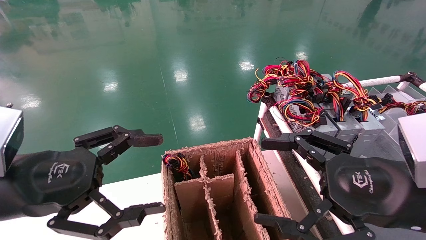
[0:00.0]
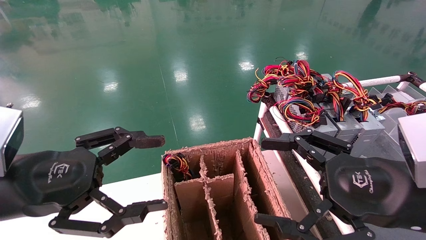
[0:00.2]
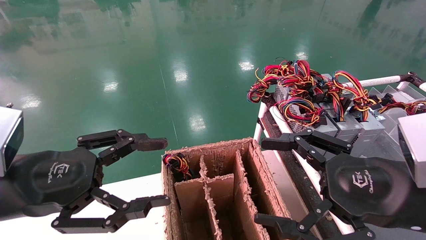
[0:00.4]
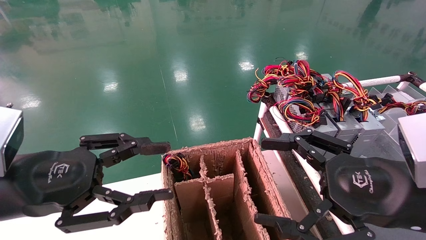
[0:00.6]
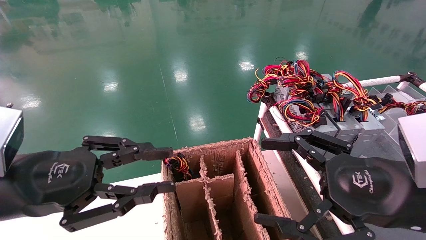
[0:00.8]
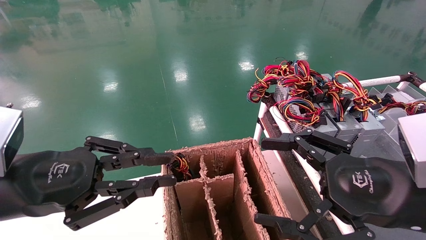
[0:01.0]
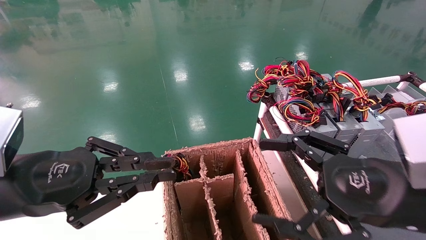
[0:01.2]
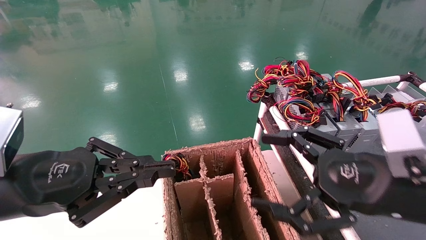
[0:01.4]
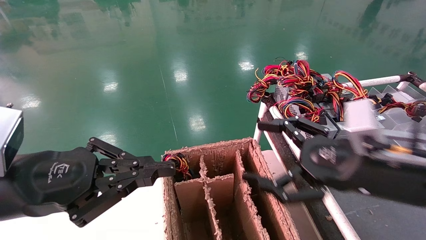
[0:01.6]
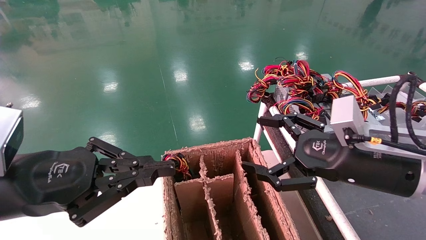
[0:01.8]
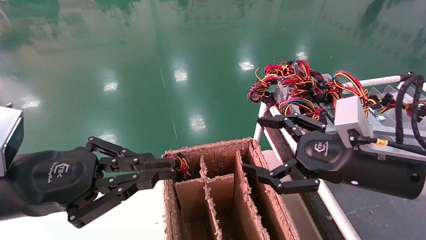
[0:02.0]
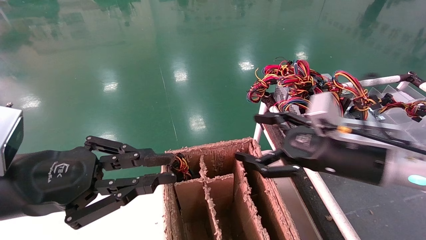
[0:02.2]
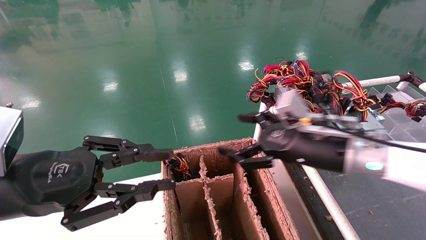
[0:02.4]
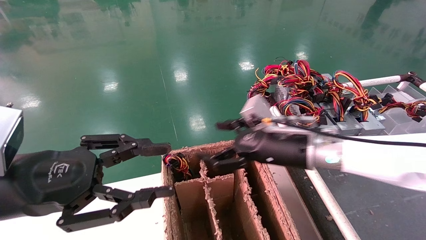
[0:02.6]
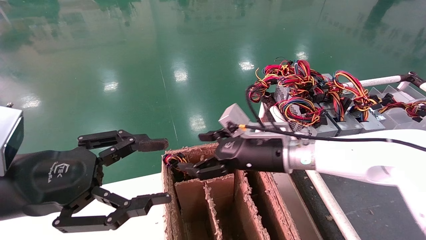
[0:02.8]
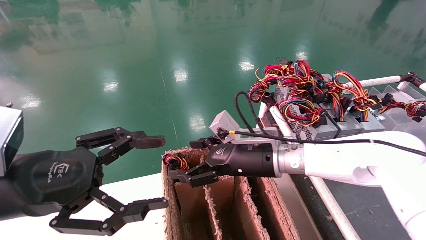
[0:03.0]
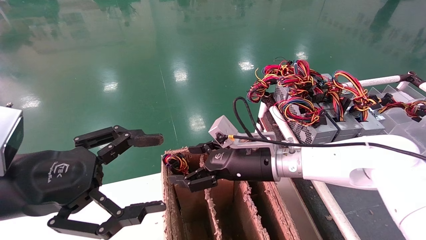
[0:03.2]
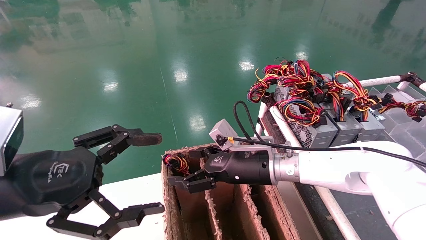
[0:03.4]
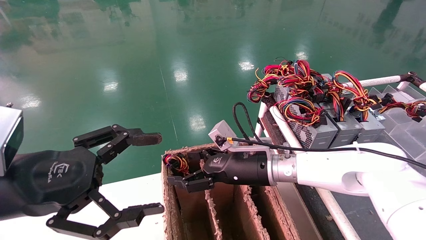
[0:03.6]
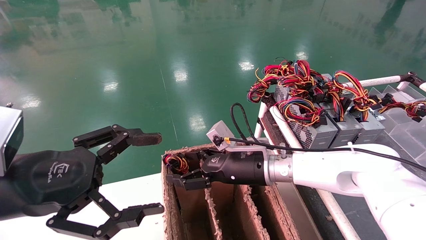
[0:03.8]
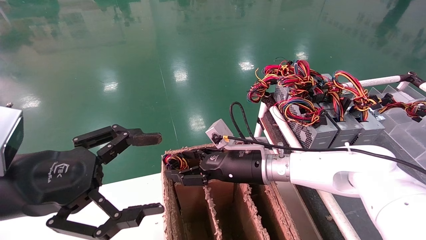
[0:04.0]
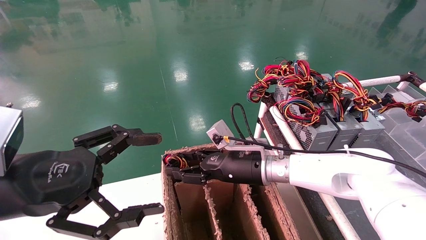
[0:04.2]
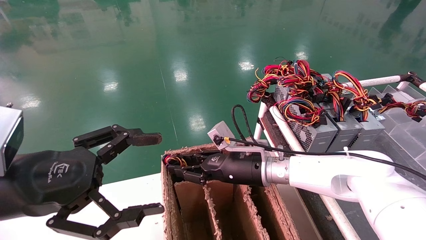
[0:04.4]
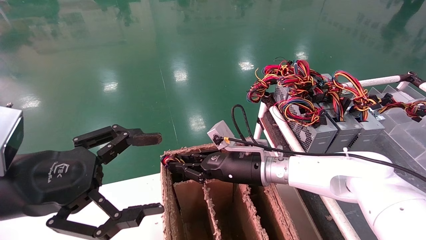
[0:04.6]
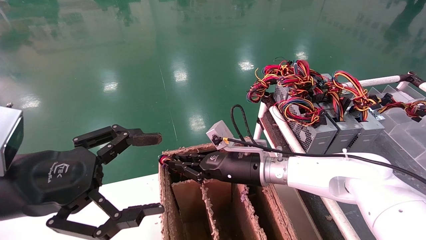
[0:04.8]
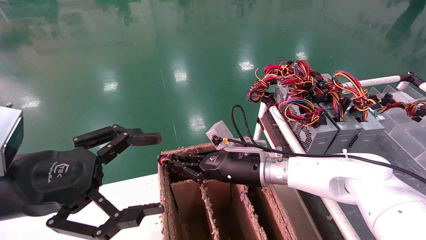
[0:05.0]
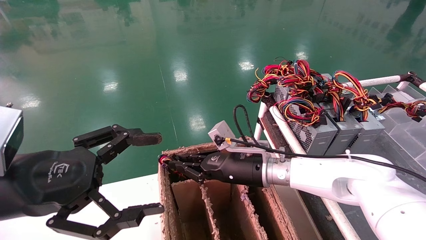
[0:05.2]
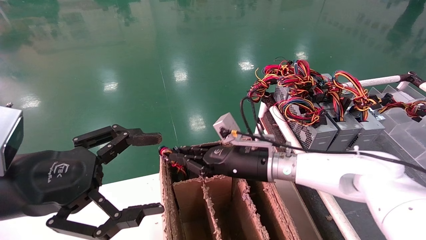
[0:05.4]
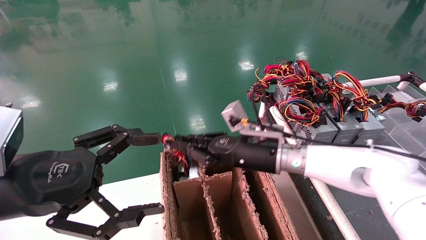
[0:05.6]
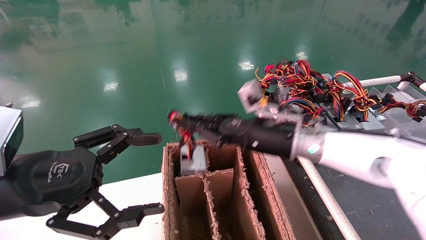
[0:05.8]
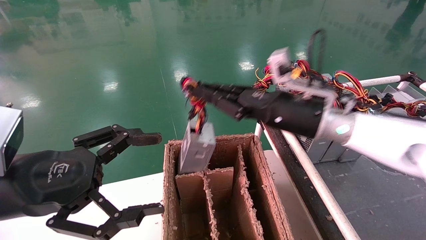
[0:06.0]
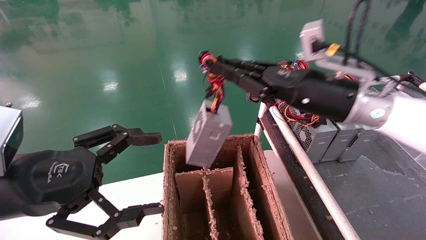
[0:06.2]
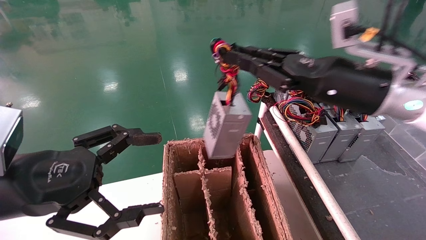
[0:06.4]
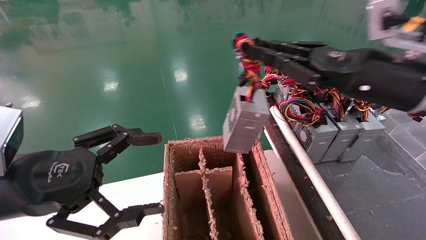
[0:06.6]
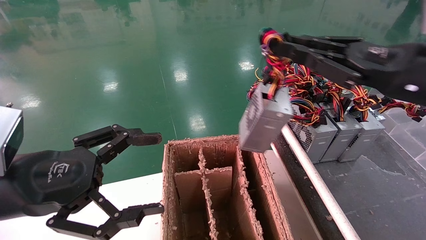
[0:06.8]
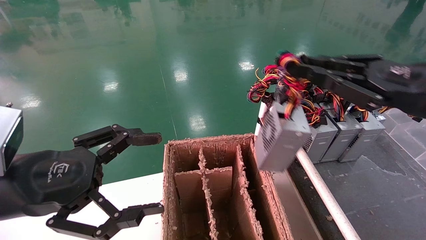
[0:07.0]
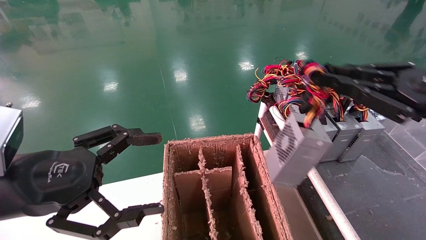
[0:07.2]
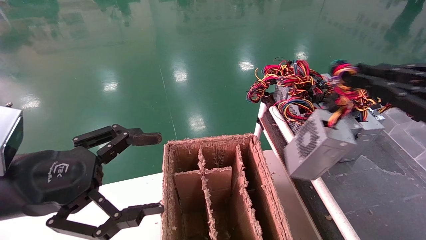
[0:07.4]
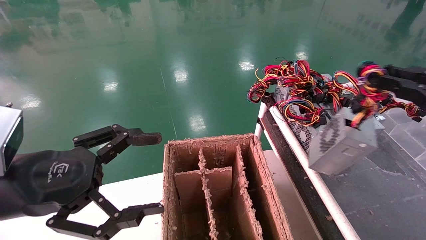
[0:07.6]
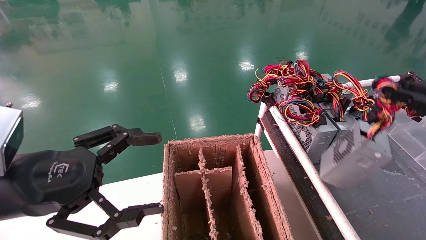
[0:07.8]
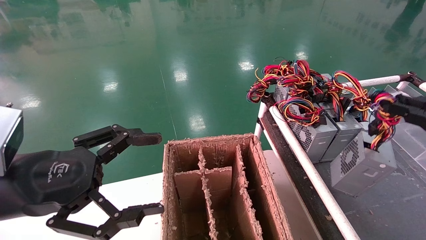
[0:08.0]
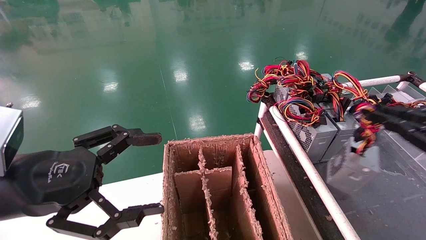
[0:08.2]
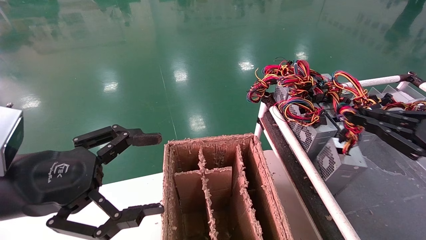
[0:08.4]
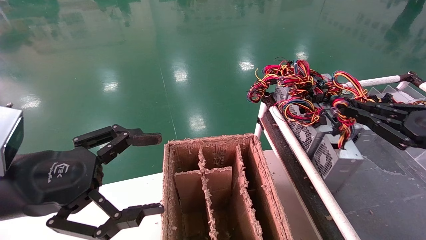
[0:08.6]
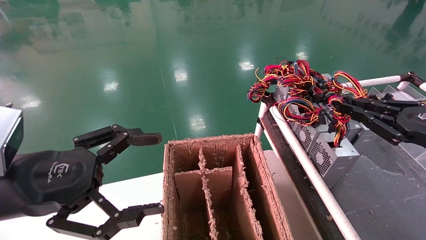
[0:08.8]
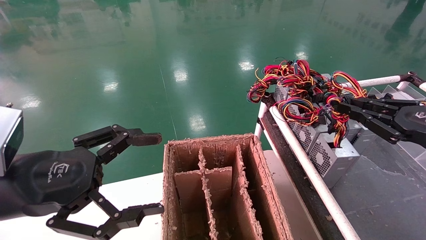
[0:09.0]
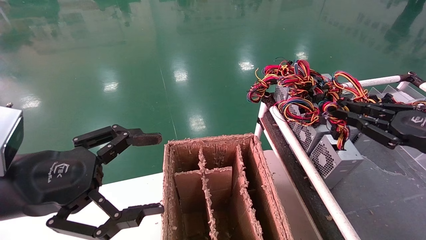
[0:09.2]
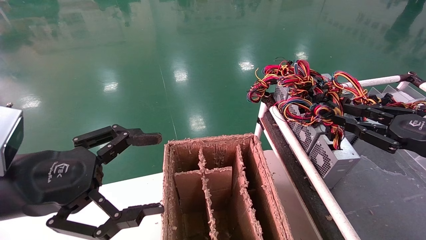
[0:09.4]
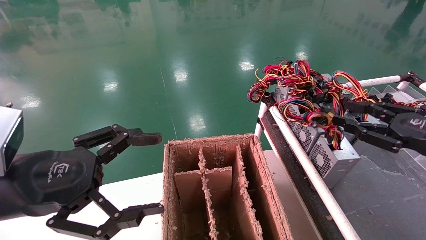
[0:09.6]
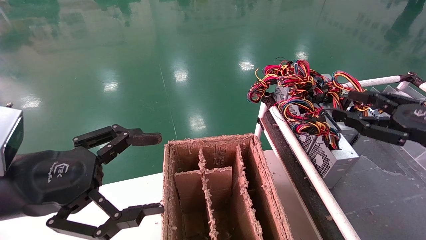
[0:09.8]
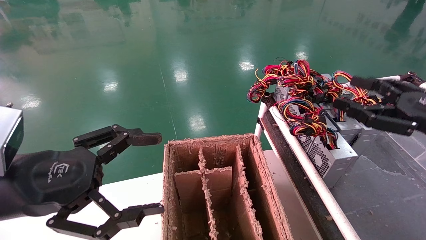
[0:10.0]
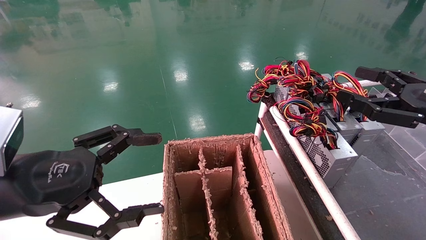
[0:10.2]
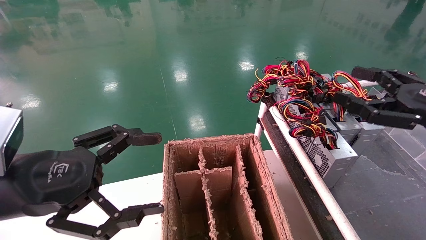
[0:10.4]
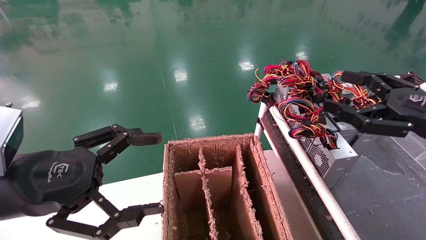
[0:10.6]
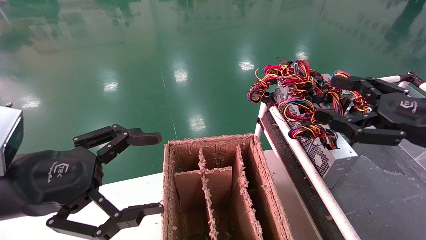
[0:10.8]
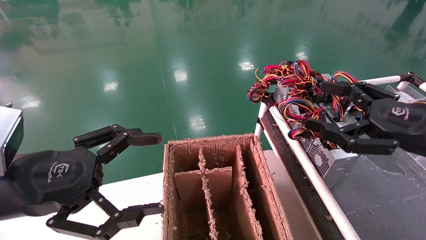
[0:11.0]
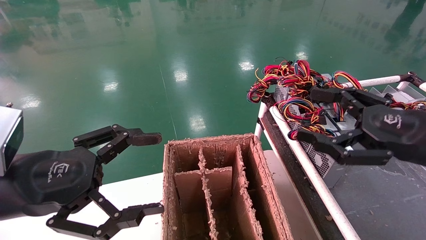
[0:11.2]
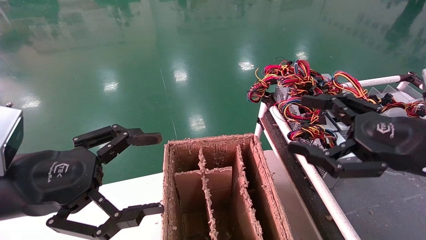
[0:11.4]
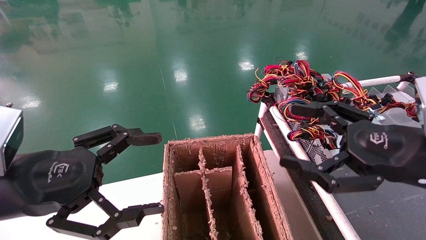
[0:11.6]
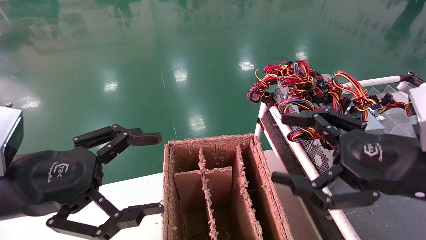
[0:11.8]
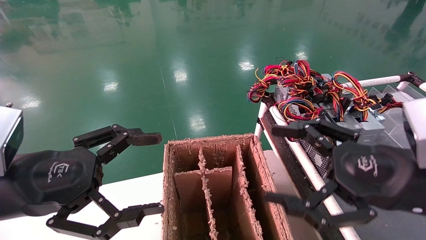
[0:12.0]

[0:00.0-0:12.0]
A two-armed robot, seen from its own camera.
Step, 0:01.4 to 0:04.8: Grab and lift the power supply from the large box.
Step, 0:05.0 to 0:09.2: Place the power supply on the operating table.
0:00.0 to 0:01.6: The right gripper goes about 5 cm forward, while the left gripper closes.
0:01.6 to 0:03.0: The right gripper travels to the left and forward by about 20 cm. Meanwhile the left gripper opens its fingers.
0:03.0 to 0:04.4: The right gripper moves about 5 cm, and closes up.
0:04.4 to 0:06.0: The right gripper travels upward and to the right by roughly 15 cm, and closes up.
0:06.0 to 0:07.6: The right gripper moves to the right and backward, roughly 30 cm.
0:07.6 to 0:09.0: The right gripper shifts some 10 cm forward and downward.
0:09.0 to 0:10.4: The right gripper opens up.
0:10.4 to 0:12.0: The right gripper moves to the left and backward, roughly 15 cm.

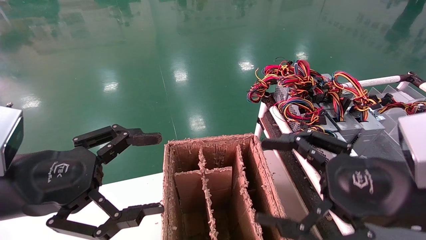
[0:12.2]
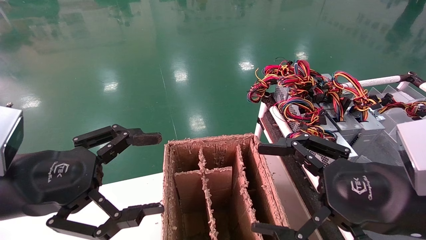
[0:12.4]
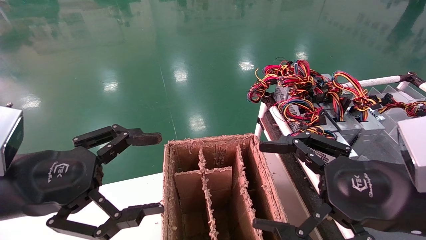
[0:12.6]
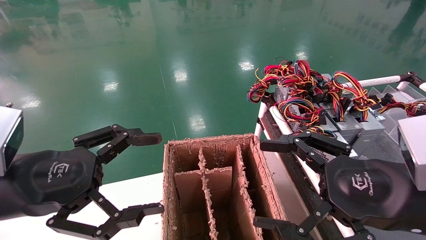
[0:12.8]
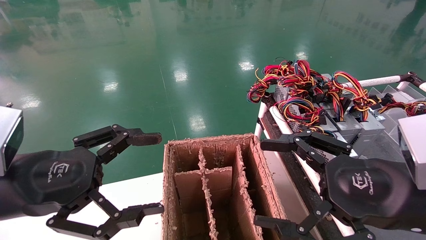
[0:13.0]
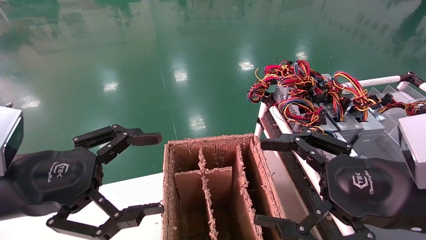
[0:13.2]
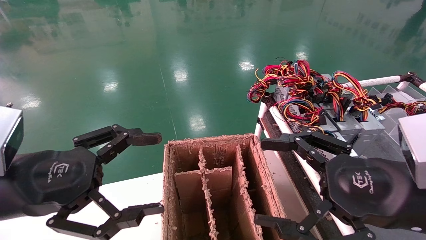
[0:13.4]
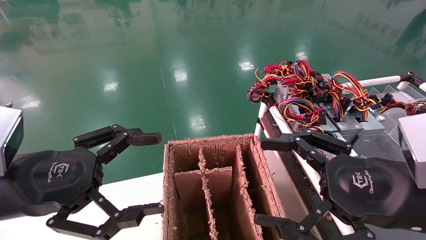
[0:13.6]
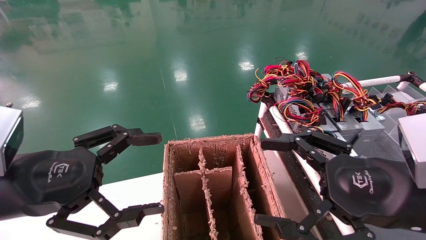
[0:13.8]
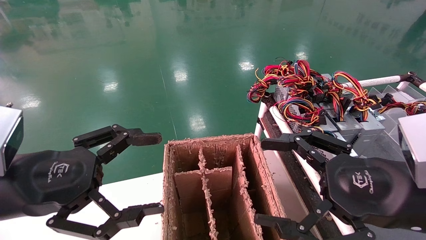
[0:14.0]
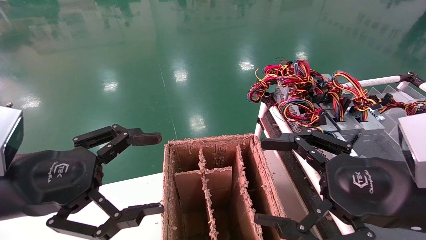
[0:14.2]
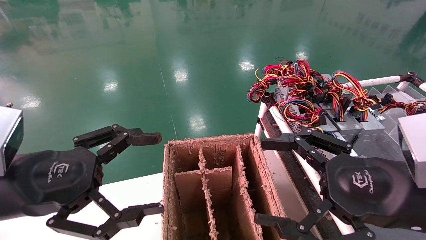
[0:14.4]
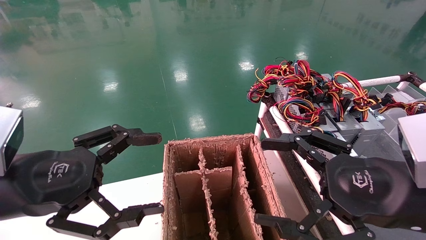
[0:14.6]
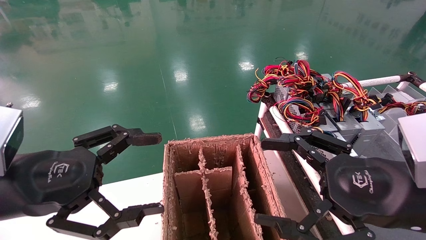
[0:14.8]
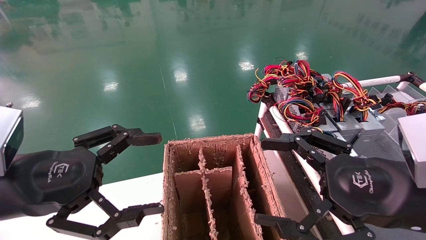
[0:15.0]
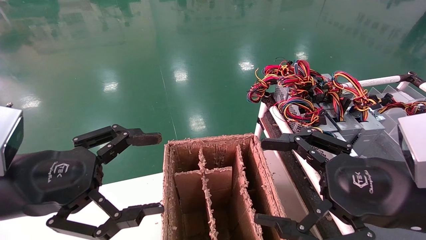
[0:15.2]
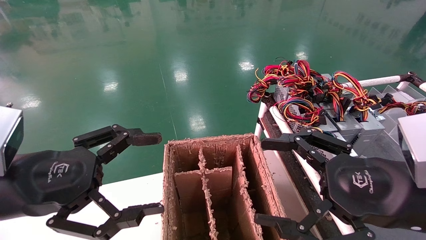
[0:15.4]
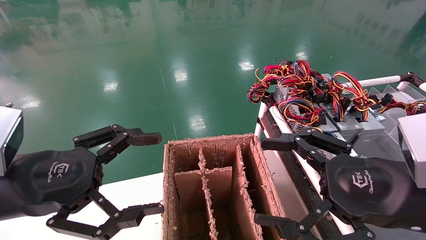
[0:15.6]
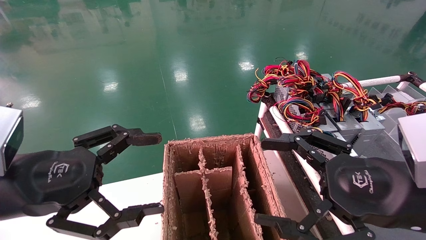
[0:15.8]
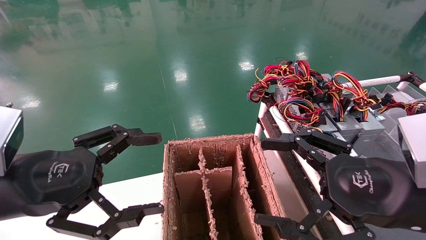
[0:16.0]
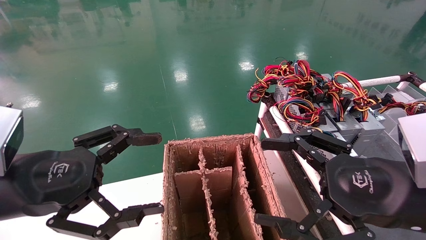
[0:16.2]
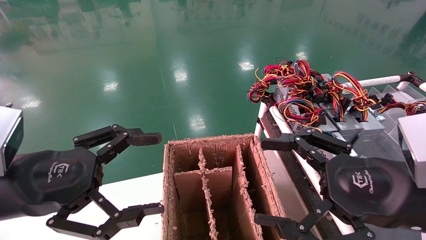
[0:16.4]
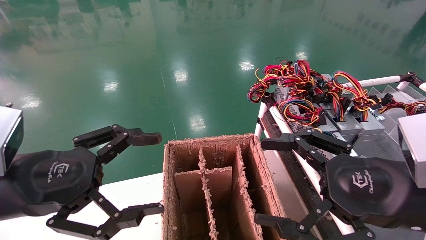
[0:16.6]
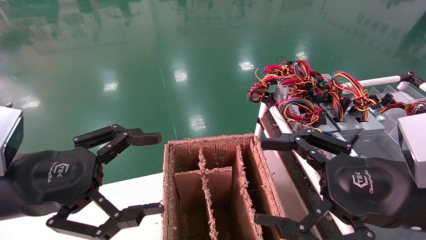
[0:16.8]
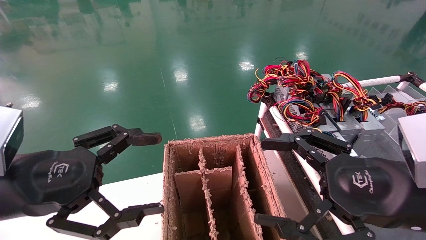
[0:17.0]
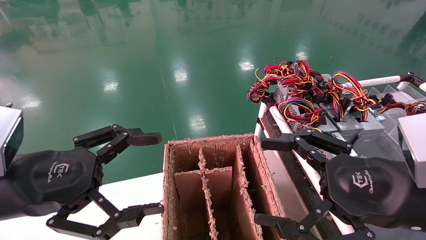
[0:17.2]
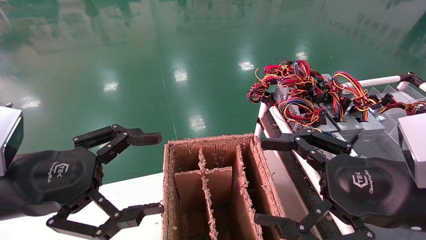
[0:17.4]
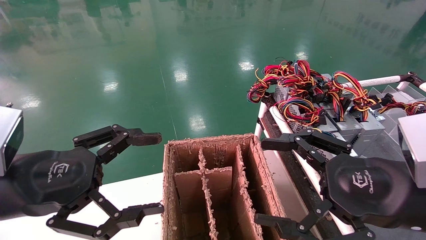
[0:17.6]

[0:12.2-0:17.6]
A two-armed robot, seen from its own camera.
0:12.2 to 0:17.6: Neither gripper changes place.
